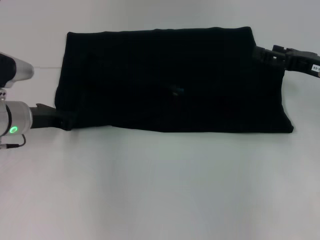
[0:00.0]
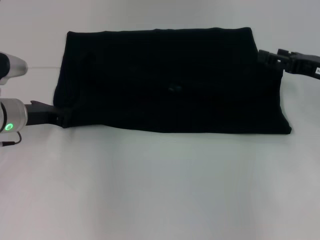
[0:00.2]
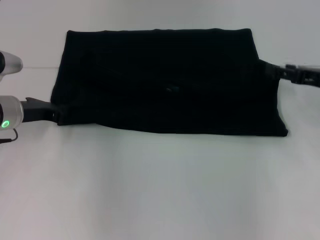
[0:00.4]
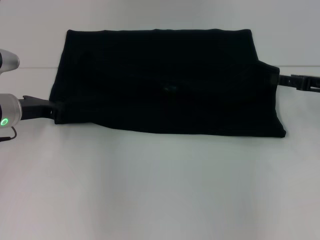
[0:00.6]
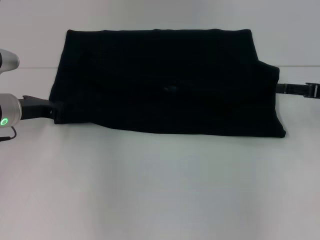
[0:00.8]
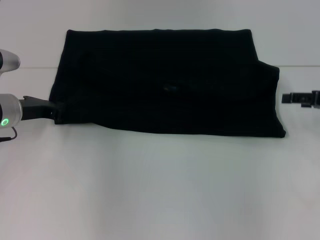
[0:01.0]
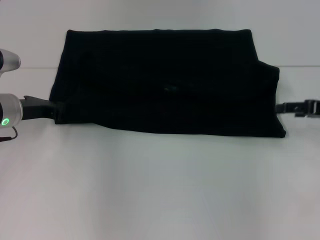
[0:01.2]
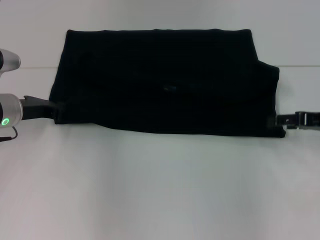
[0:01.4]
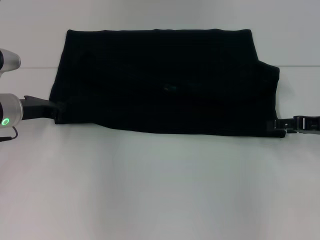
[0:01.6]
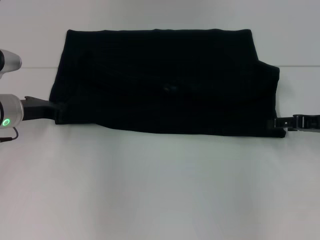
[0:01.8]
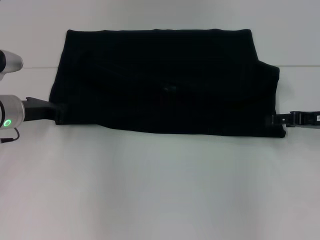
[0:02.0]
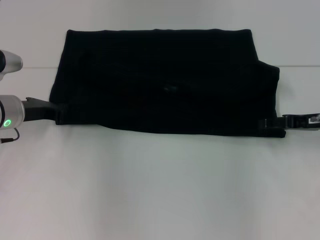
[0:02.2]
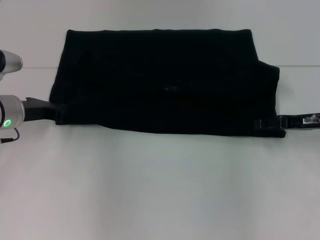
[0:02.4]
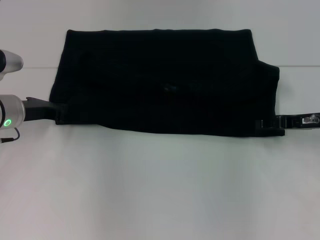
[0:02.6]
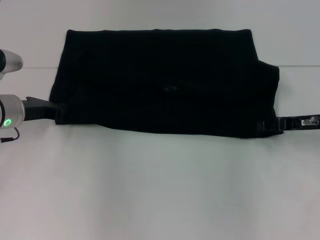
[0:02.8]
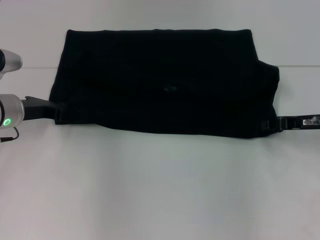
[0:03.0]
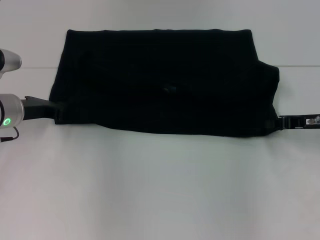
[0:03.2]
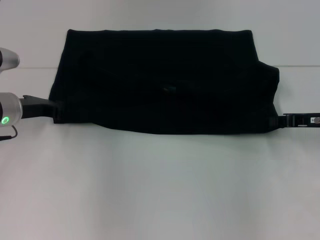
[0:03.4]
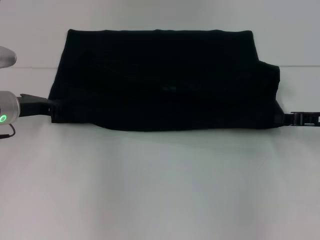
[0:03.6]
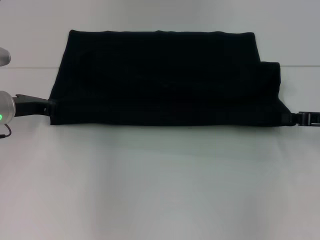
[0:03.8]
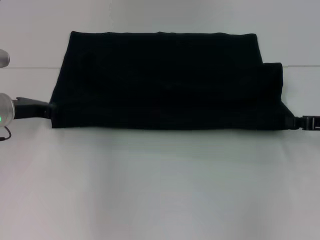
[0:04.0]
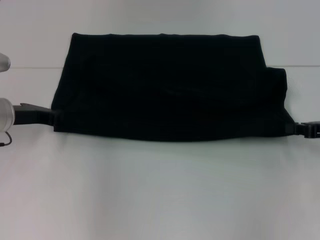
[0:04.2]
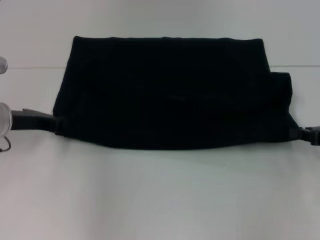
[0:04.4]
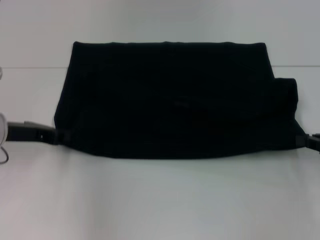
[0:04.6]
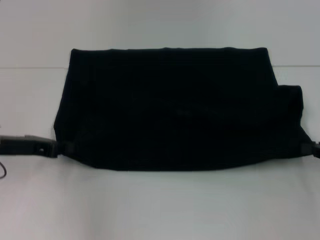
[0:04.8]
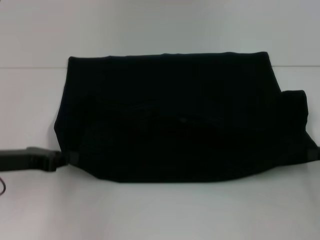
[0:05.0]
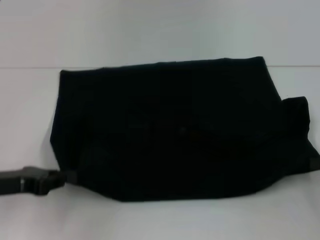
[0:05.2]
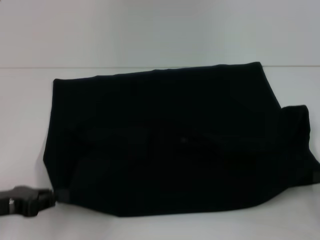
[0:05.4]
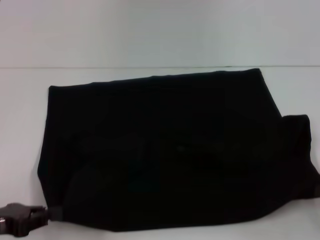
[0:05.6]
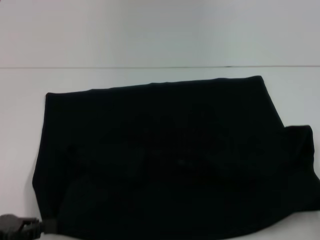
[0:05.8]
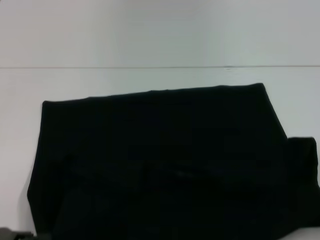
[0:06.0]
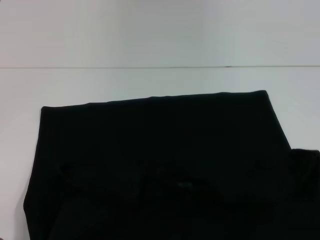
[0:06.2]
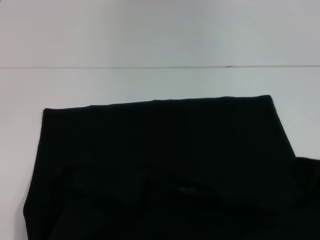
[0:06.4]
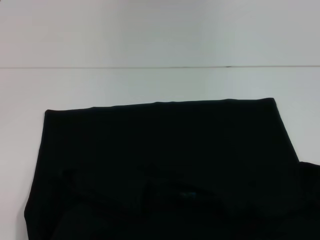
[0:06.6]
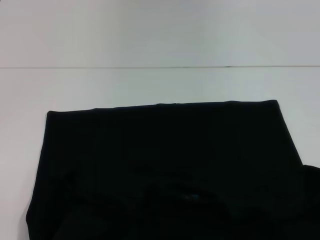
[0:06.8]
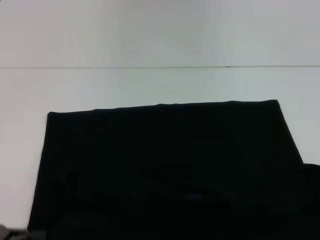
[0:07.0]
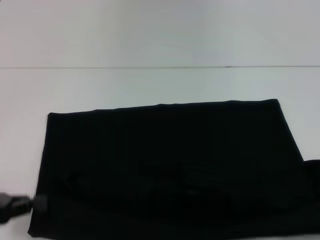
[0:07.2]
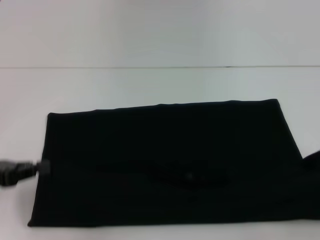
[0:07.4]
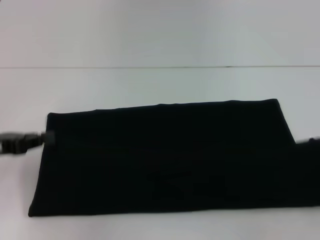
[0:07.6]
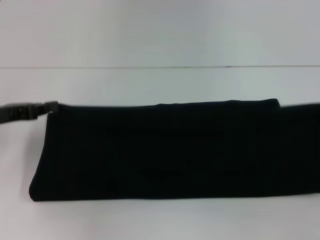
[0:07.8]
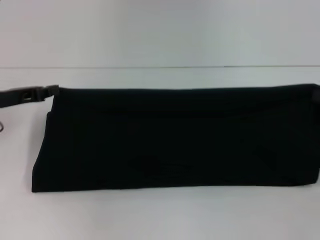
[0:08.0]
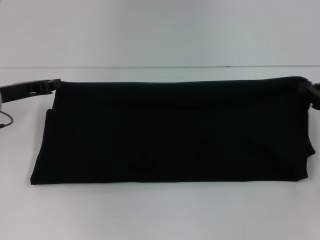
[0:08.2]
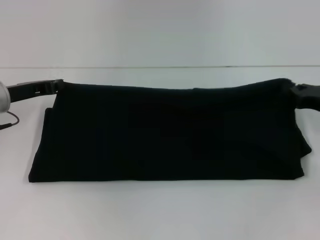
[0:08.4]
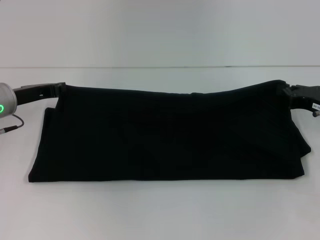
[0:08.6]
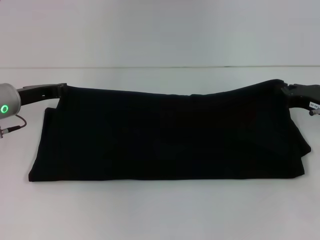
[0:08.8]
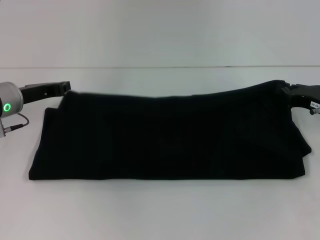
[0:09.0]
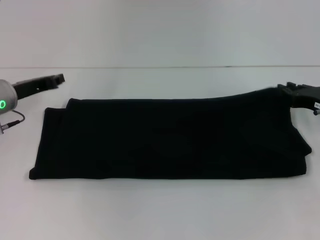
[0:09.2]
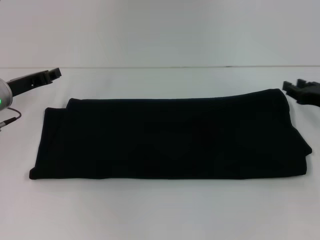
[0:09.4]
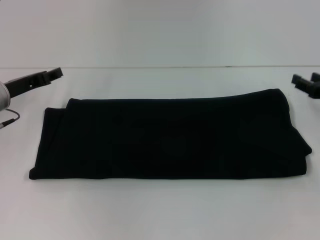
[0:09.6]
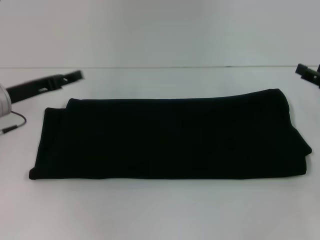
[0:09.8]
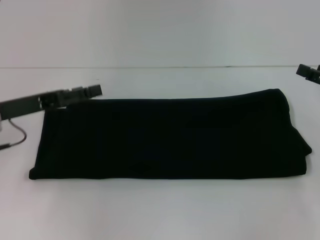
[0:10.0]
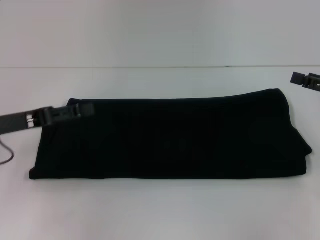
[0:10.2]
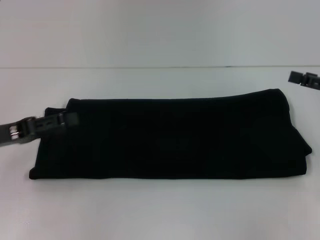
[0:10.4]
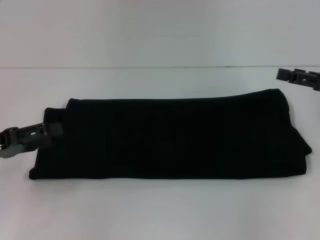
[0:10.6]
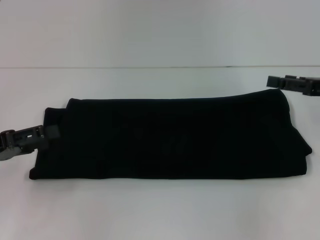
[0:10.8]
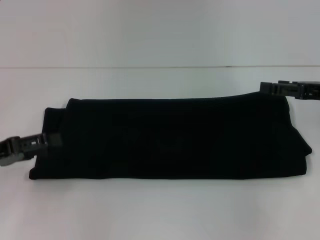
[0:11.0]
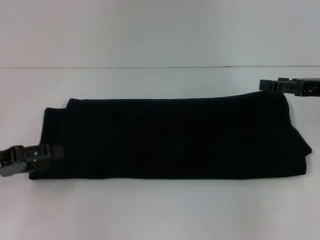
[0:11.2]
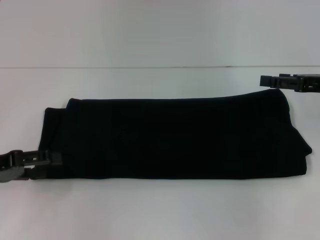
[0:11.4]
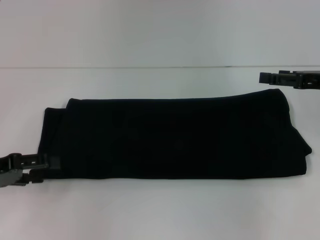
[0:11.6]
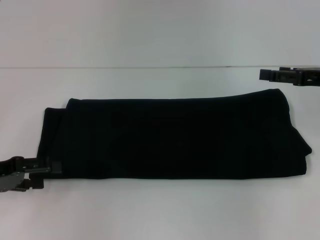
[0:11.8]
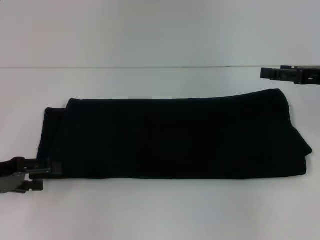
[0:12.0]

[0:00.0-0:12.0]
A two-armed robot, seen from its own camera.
Step, 0:00.0 to 0:07.0: Pull the clothes with your left hand.
Step, 0:00.0 to 0:07.0: Pull the clothes with your right hand.
Step, 0:07.2 to 0:09.4: Fold the clothes with your right hand.
0:01.6 to 0:03.0: The right gripper closes.
0:03.0 to 0:04.4: The right gripper is displaced to the right by some 5 cm, and closes up.
0:04.4 to 0:06.0: Both grippers travel together backward, about 15 cm.
0:06.0 to 0:07.6: The left gripper goes approximately 10 cm forward.
0:07.6 to 0:09.0: The left gripper heads forward and to the right, covering approximately 15 cm. Meanwhile the right gripper goes about 15 cm forward and to the left.
0:09.0 to 0:10.4: The right gripper travels upward by roughly 5 cm, and opens. The left gripper travels backward by about 10 cm, and opens up.
0:10.4 to 0:12.0: The right gripper changes place by approximately 5 cm.

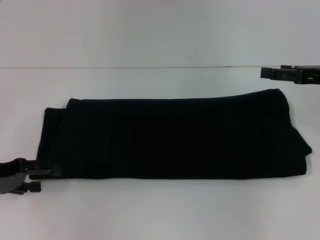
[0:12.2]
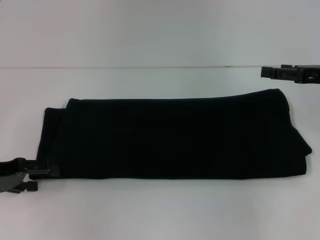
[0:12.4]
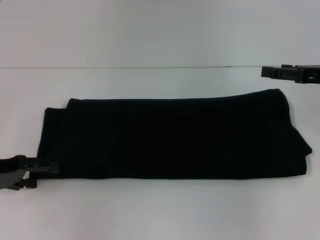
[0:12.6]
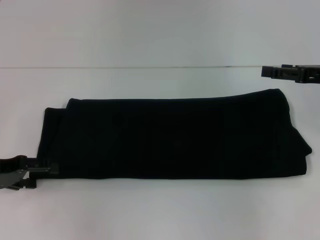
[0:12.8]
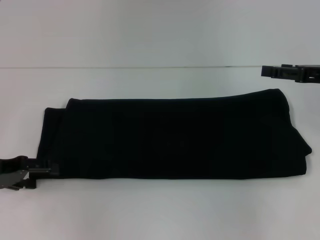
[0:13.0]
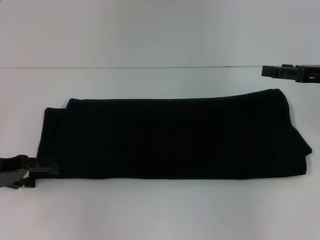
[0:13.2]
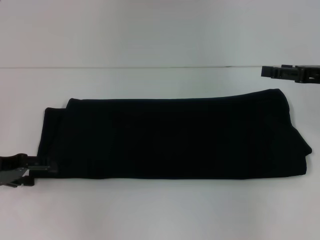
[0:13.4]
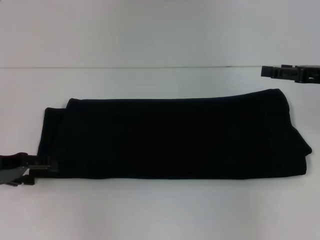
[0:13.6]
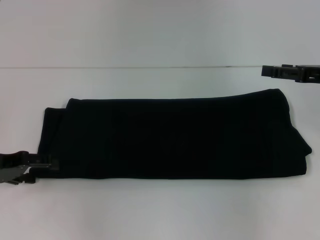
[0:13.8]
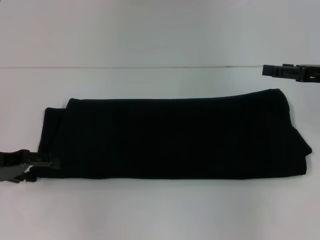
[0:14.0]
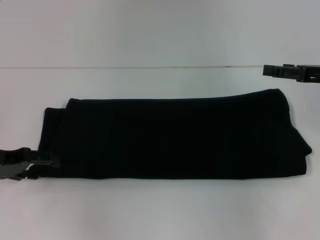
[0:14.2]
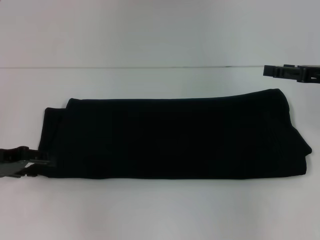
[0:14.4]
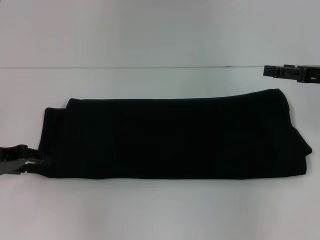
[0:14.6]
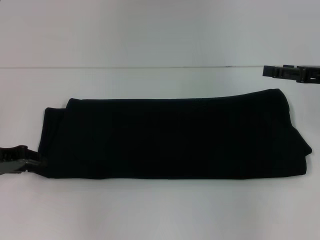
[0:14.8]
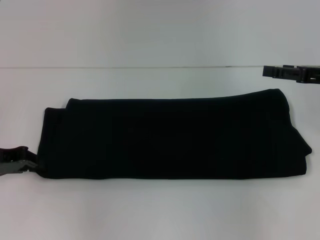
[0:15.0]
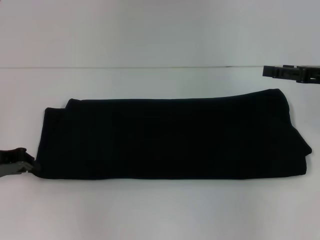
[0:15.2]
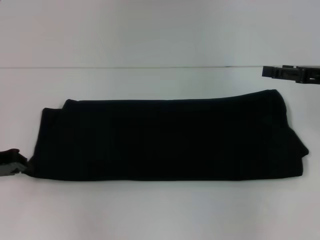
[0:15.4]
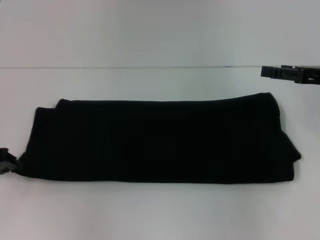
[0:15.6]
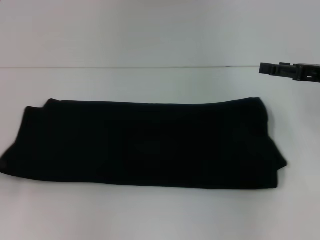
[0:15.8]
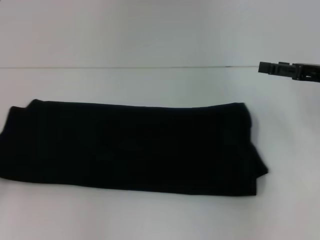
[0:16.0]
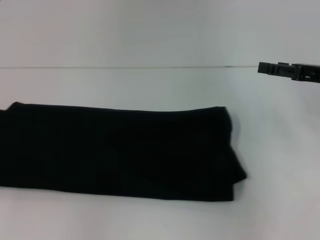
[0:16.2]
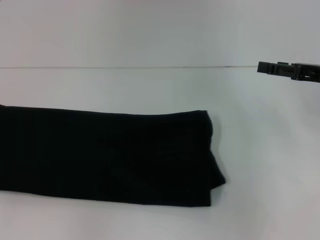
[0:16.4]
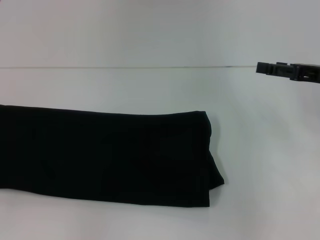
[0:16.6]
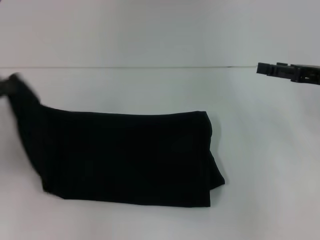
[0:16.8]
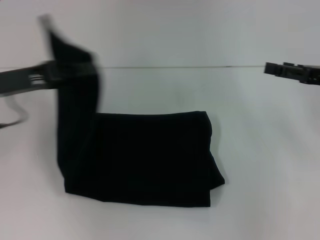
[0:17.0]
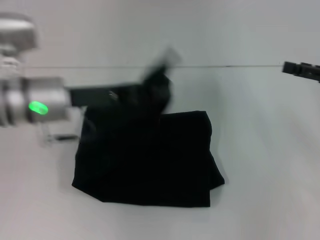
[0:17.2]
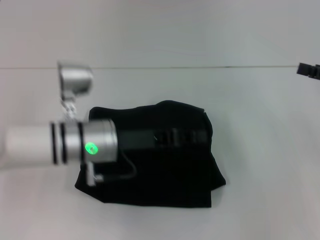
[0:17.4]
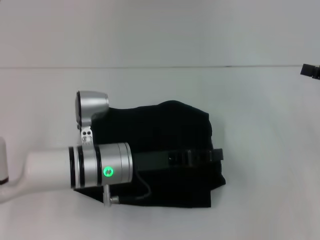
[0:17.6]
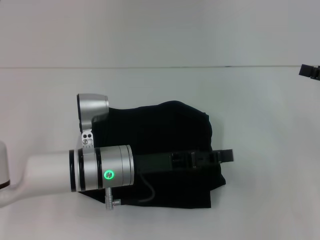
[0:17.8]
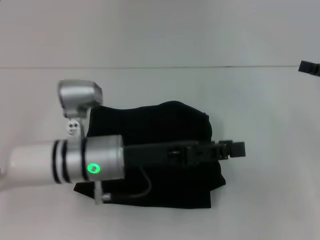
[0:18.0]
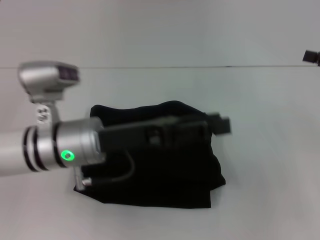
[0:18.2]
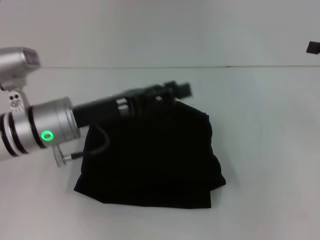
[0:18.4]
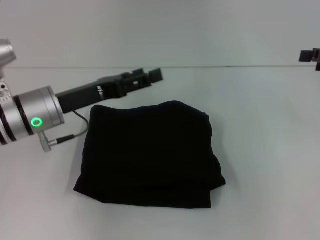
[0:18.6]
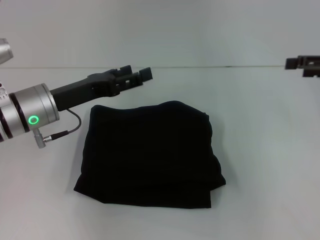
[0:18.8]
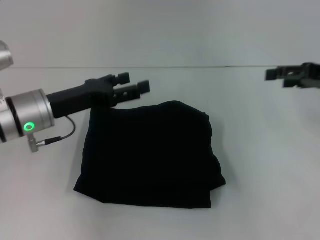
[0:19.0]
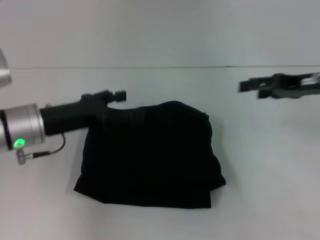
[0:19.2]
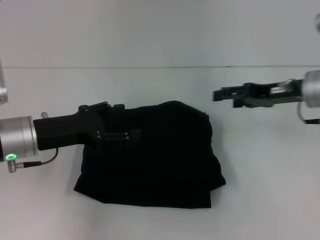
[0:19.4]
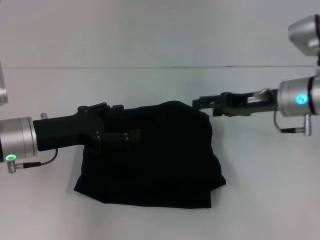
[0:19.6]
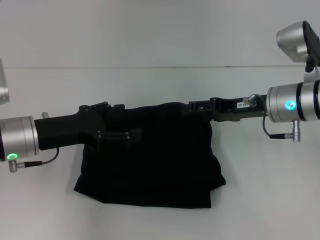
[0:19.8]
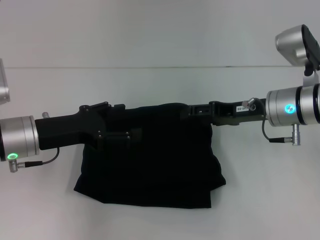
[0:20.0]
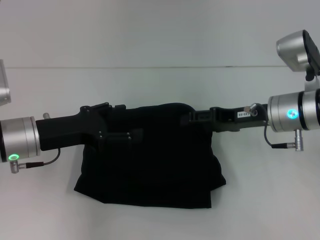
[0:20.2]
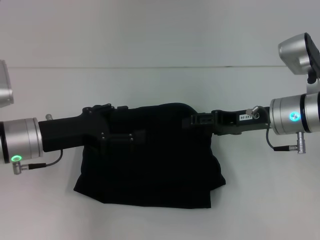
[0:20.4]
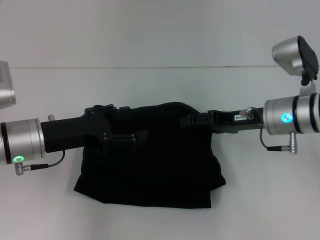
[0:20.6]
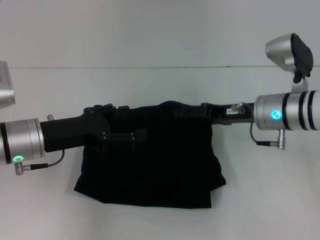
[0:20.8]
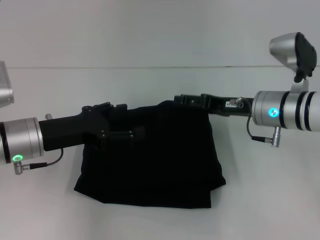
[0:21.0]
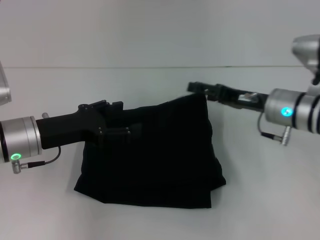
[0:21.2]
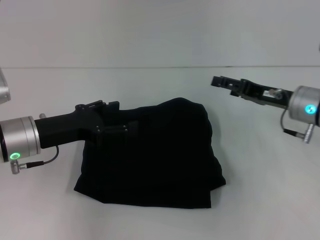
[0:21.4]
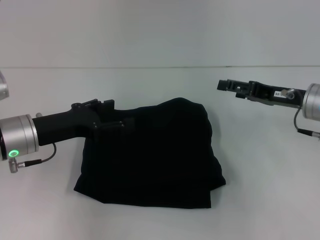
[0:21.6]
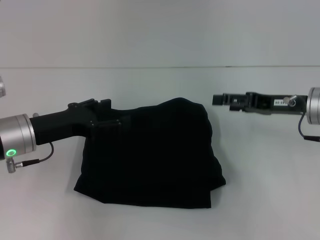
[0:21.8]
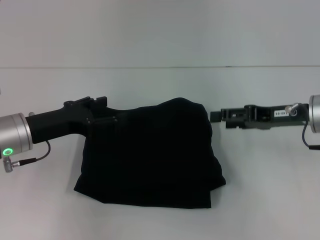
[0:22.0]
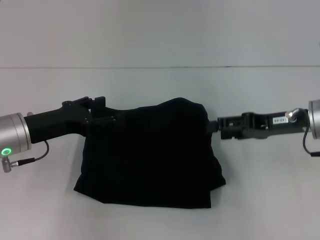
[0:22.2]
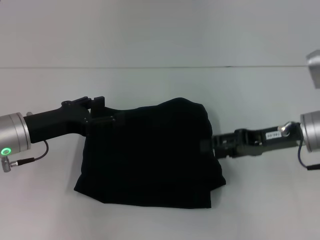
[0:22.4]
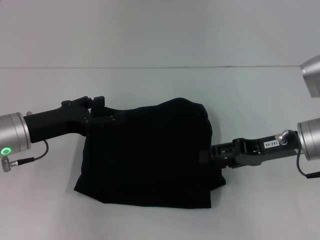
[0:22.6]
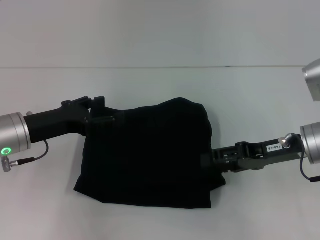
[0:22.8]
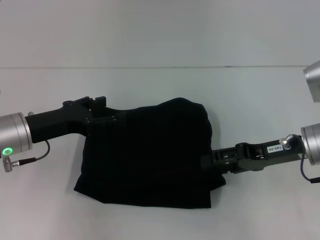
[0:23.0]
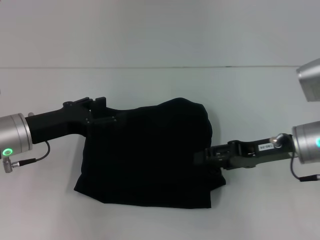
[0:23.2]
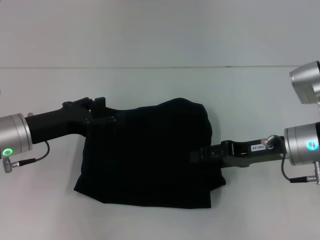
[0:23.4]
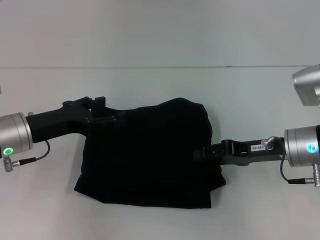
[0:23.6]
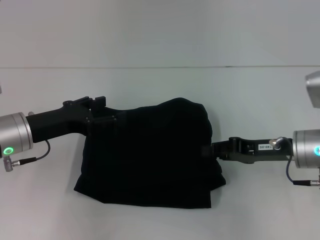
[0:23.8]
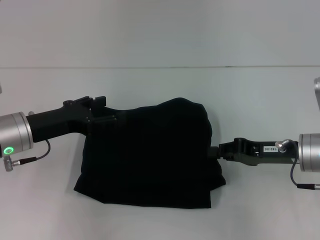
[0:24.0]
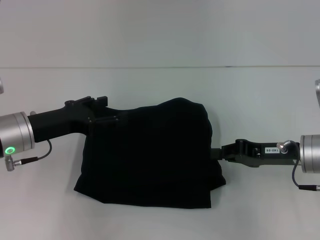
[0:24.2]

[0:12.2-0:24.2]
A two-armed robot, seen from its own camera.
Step, 0:12.2 to 0:17.8: Fold the clothes with your left hand.
0:12.2 to 0:13.8: The grippers move only a little.
0:13.8 to 0:15.2: The left gripper closes.
0:15.2 to 0:16.6: The left gripper is displaced to the left and backward by about 10 cm.
0:16.6 to 0:18.2: The right gripper travels to the right by roughly 5 cm. The left gripper heads to the right, covering roughly 30 cm, and opens.
0:18.2 to 0:19.8: The right gripper is displaced to the left by approximately 20 cm; the left gripper shifts roughly 10 cm to the left.
0:19.8 to 0:21.2: The grippers move only a little.
0:21.2 to 0:22.6: The right gripper changes place by roughly 5 cm.
0:22.6 to 0:24.2: The right gripper closes.
